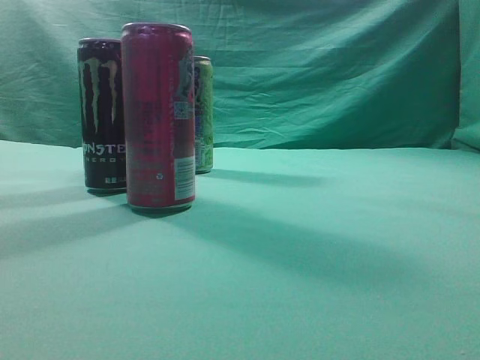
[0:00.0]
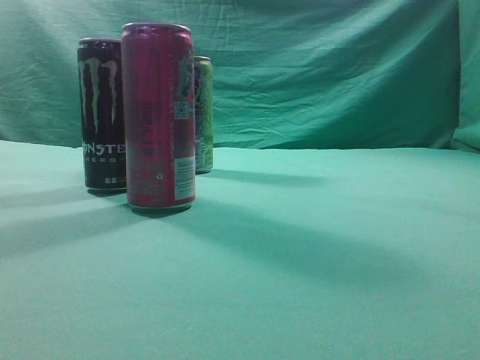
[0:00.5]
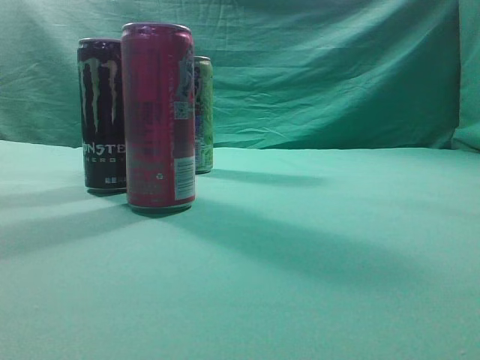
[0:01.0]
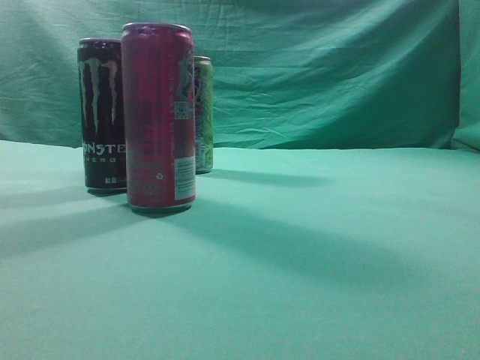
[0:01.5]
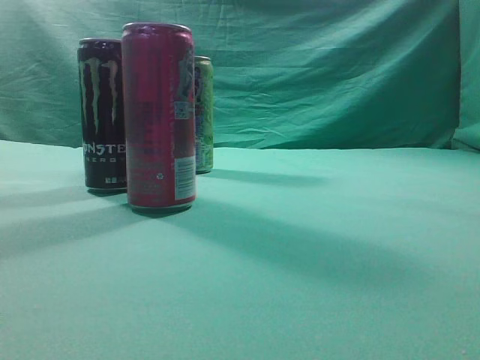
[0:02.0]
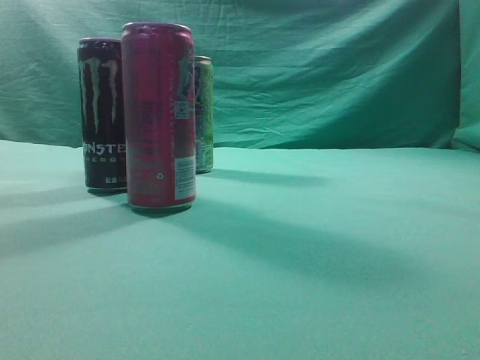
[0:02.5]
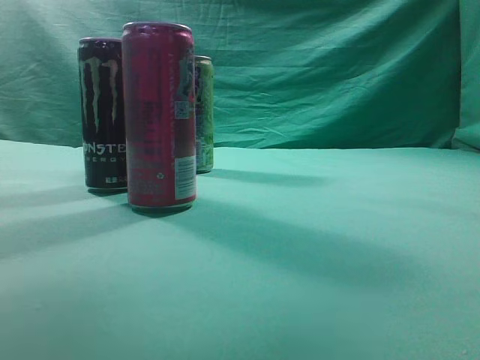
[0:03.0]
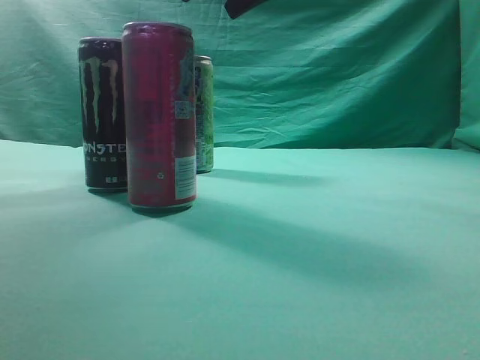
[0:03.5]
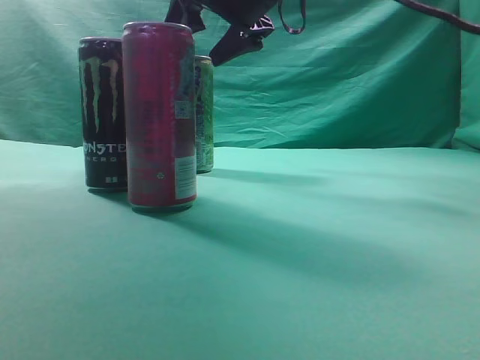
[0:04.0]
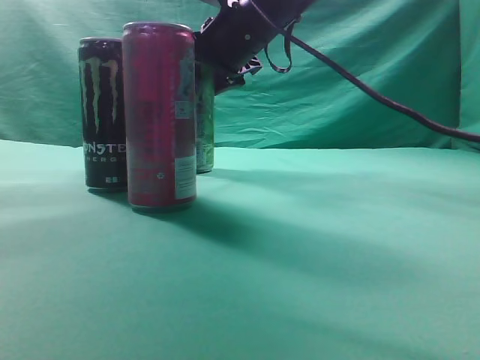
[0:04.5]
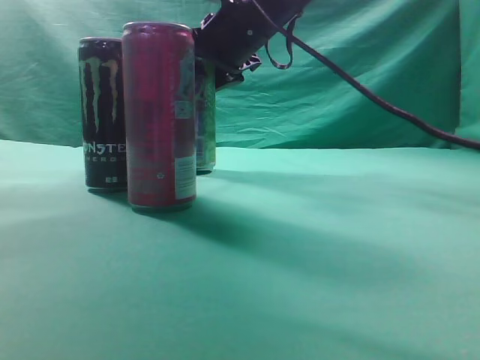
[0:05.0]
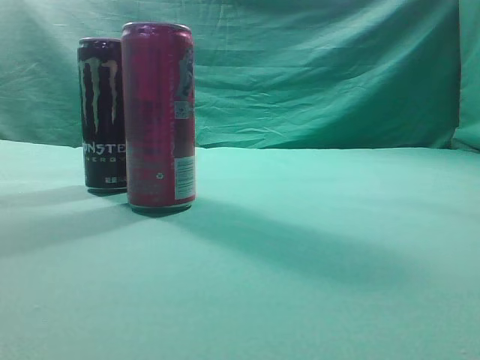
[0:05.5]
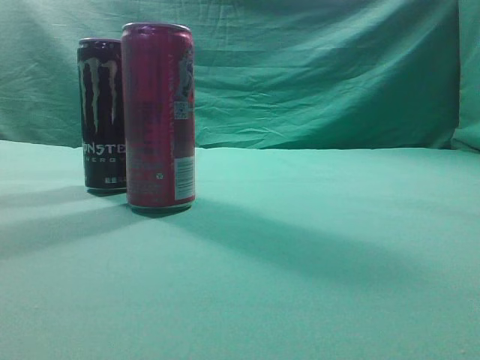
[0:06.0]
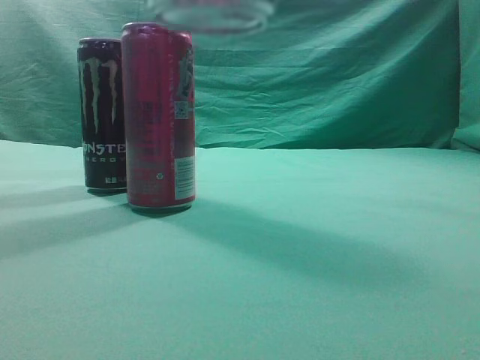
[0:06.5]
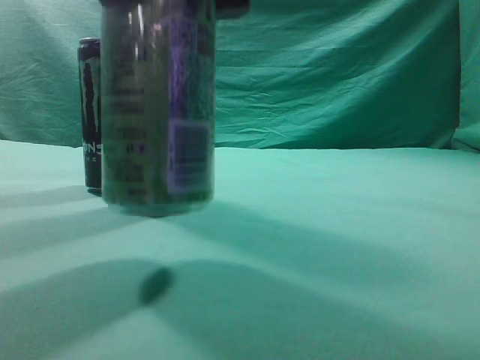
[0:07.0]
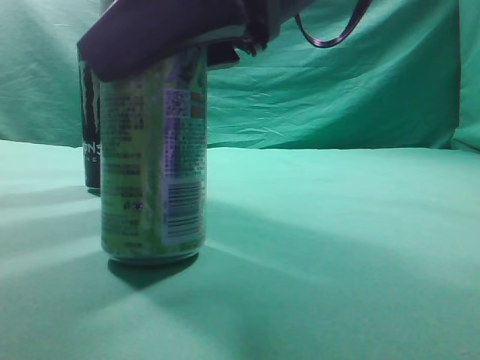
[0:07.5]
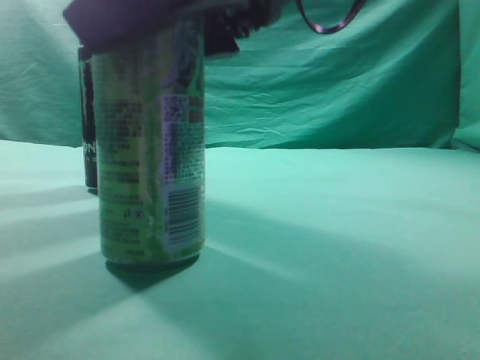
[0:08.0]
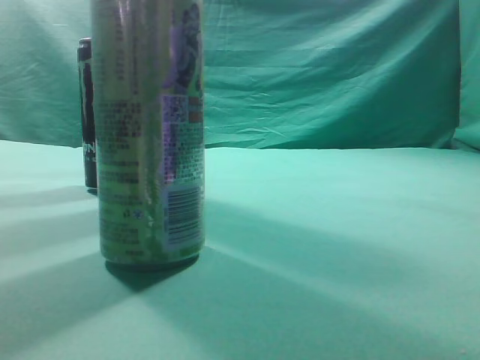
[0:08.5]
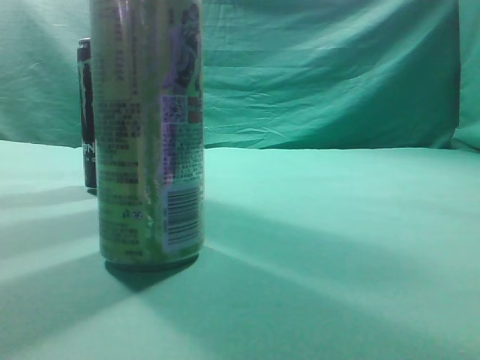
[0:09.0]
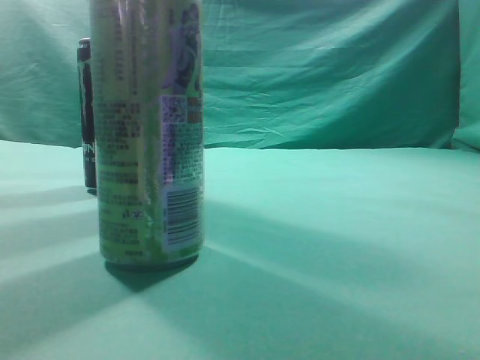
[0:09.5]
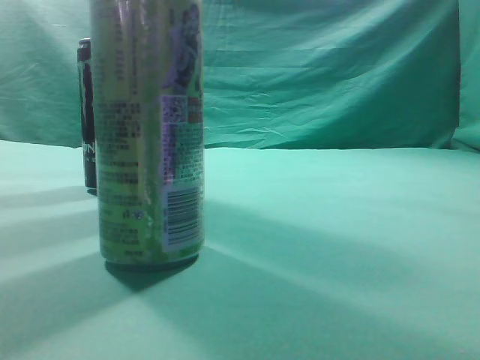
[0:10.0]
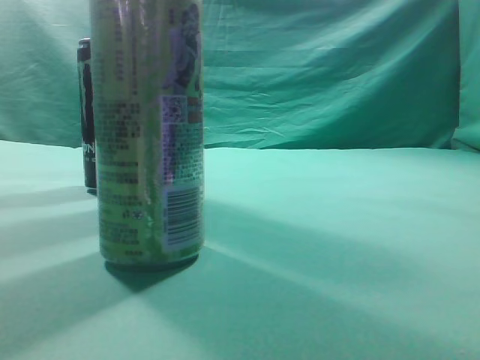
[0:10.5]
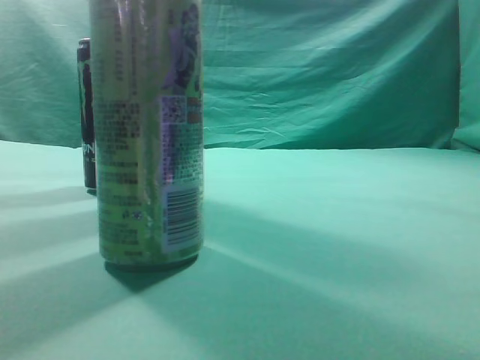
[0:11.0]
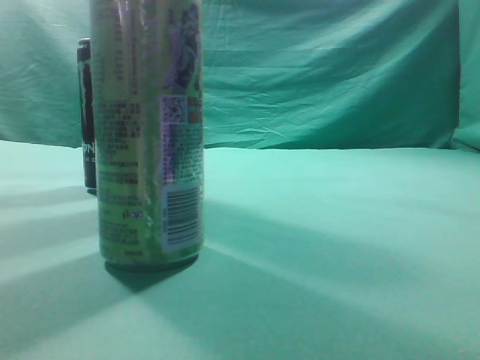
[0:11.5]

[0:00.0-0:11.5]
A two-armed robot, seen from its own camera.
Task of the whole recording: move one drink among three beverages.
Step, 0:00.0 to 0:05.0: Grasp the beverage bottle placed at the back of the desk.
Step, 0:05.5 to 0:08.0: Place the beverage bottle to the front of the table.
0:02.0 to 0:04.0: The right gripper moves forward and to the left, some 50 cm, and opens.
0:04.0 to 0:06.0: The right gripper moves backward, upward and to the right, about 30 cm.
0:06.0 to 0:07.5: The right gripper is displaced downward by approximately 25 cm.
0:07.5 to 0:09.5: The right gripper heads to the right, upward and backward, covering about 30 cm, and closes its fingers.
